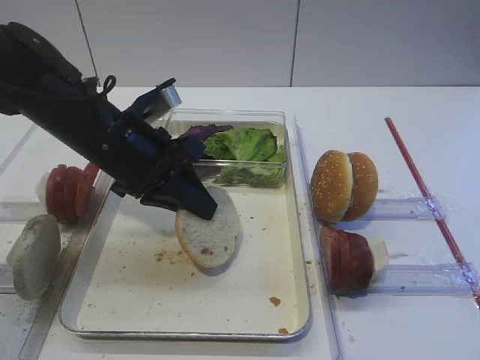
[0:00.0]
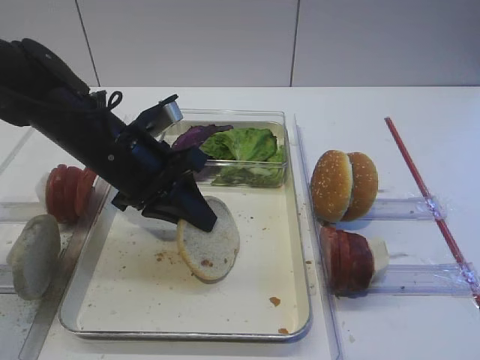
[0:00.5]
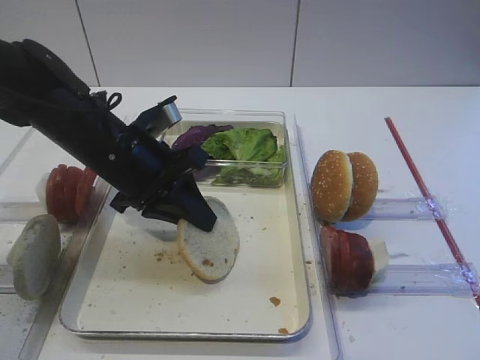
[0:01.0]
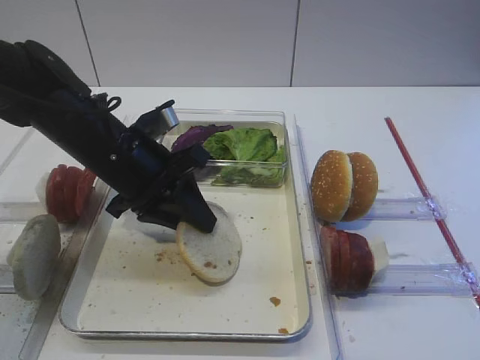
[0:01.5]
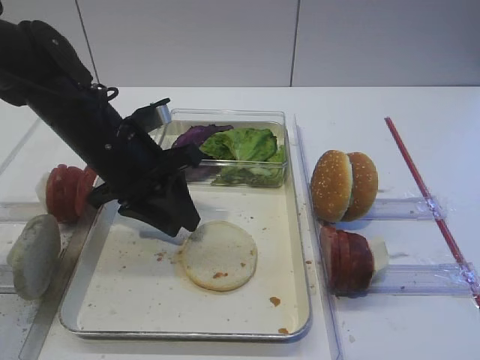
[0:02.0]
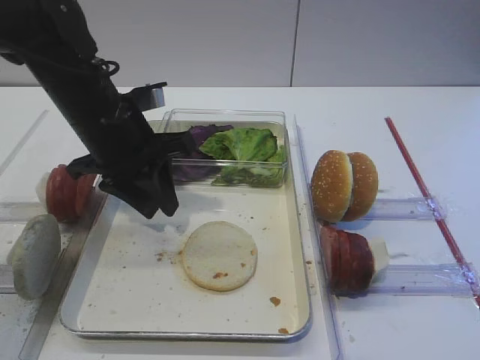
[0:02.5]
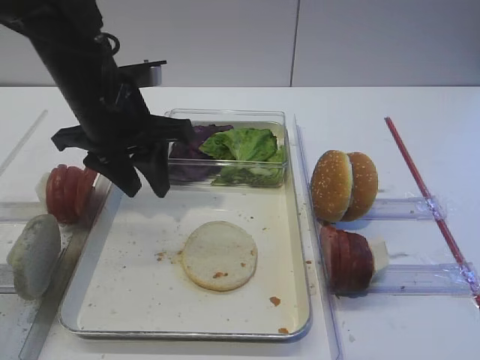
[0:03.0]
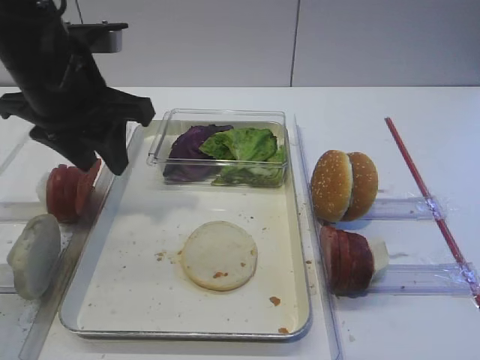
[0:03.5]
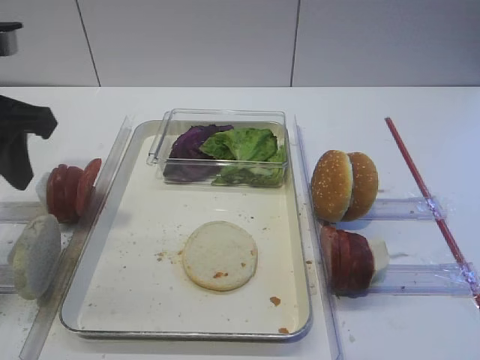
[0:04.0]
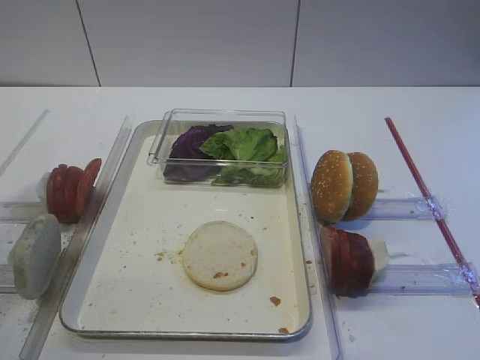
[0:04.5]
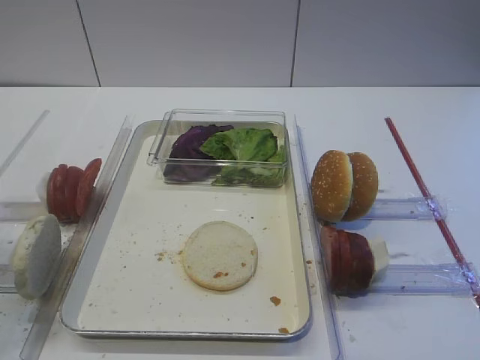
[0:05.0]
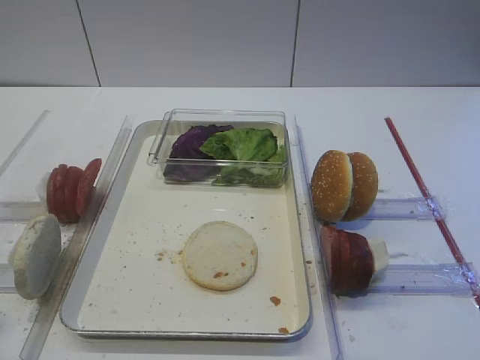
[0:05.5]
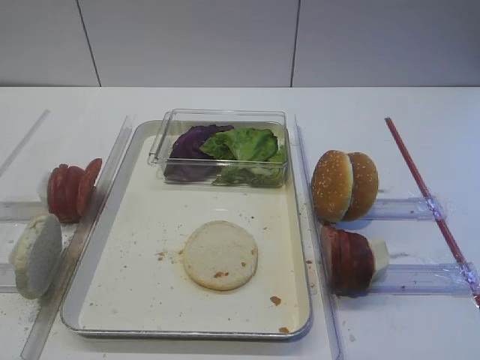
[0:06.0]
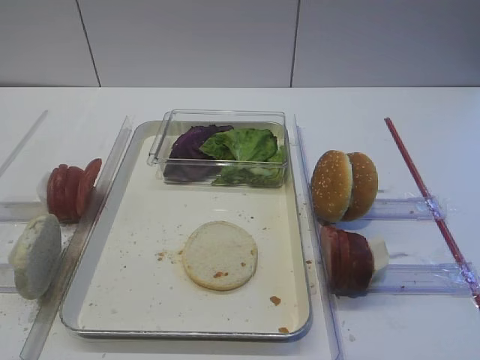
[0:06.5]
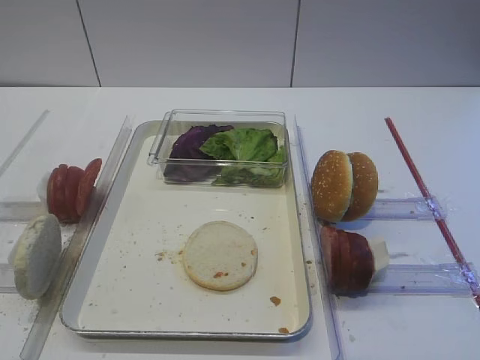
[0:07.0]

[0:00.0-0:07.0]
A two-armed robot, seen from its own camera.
Step, 0:00.0 to 0:02.0: Place the bread slice on the tray with the left gripper.
0:00.0 to 0:02.0: The left gripper opens its fingers.
0:02.0 to 0:03.5: The left gripper is displaced upward by roughly 10 cm.
0:03.5 to 0:05.0: The left gripper shifts roughly 20 cm backward and to the left.
0:05.0 to 0:07.0: The left gripper travels backward and downward by roughly 15 cm.

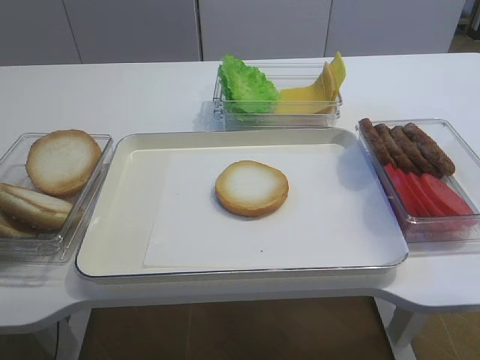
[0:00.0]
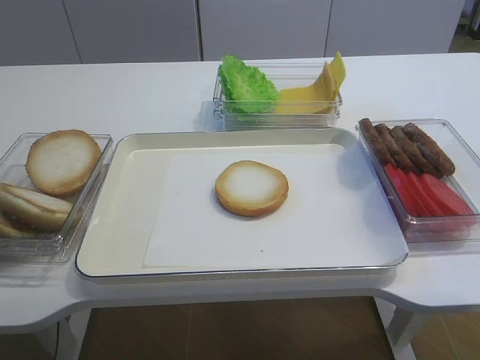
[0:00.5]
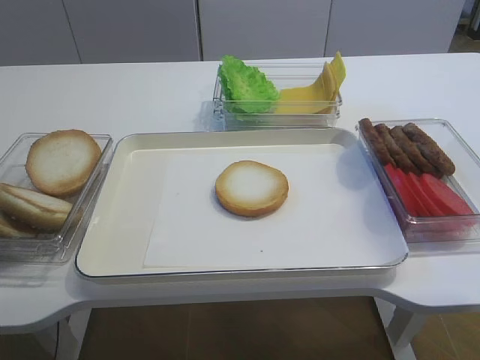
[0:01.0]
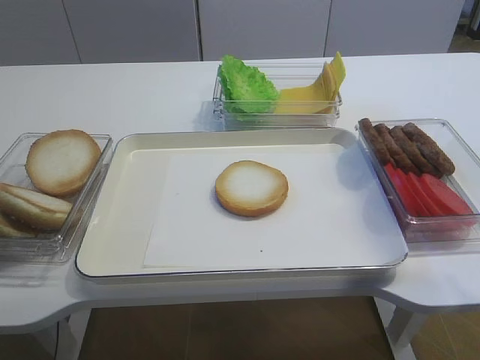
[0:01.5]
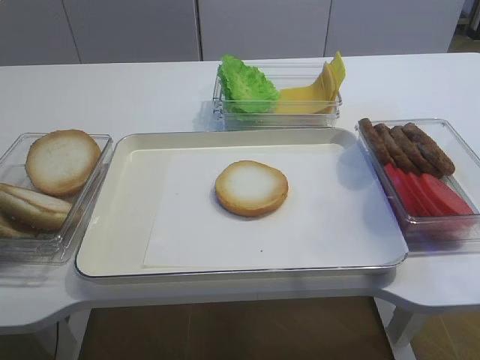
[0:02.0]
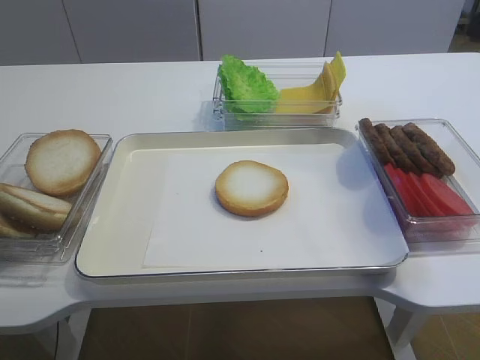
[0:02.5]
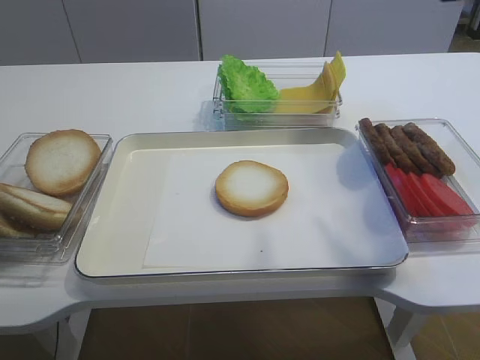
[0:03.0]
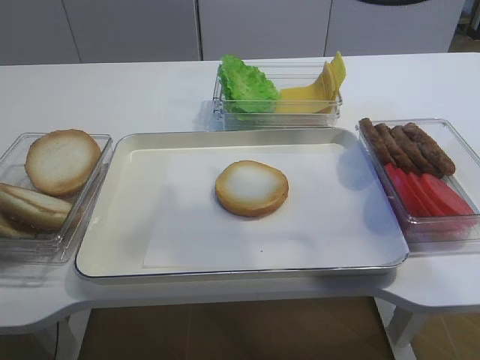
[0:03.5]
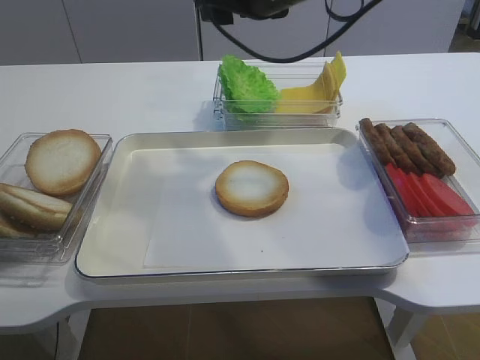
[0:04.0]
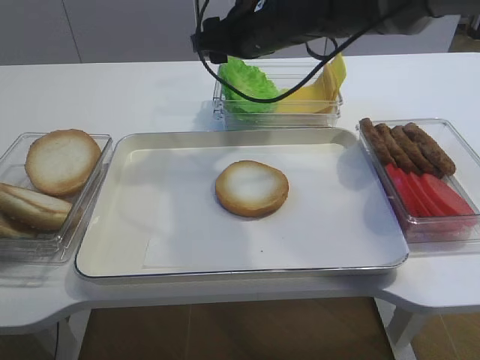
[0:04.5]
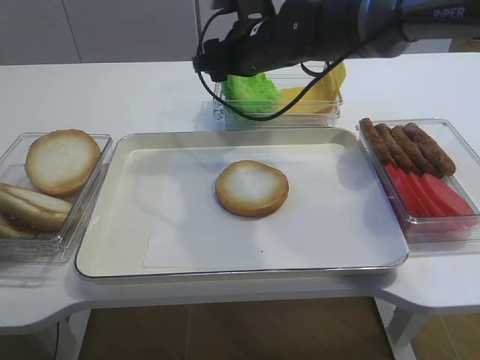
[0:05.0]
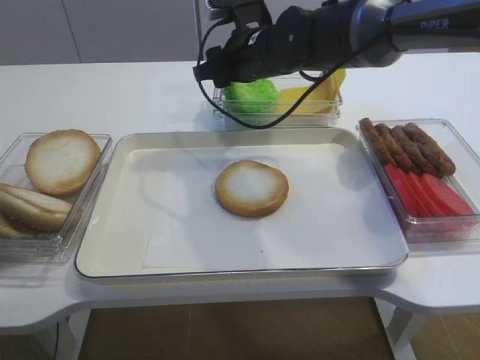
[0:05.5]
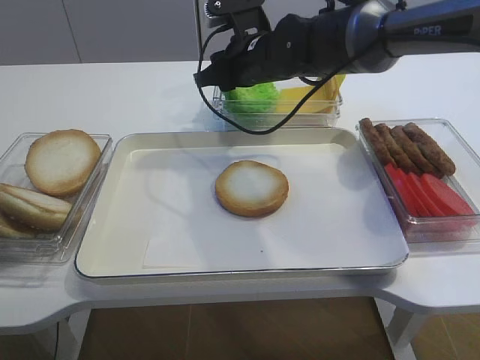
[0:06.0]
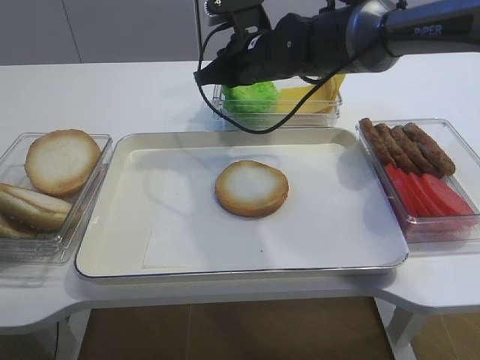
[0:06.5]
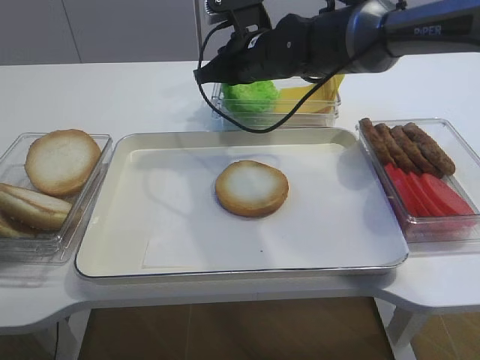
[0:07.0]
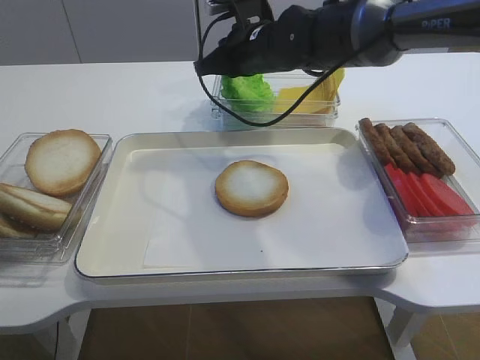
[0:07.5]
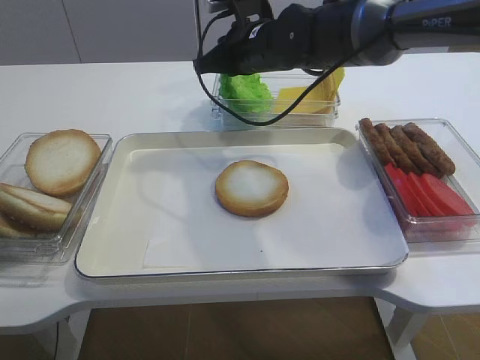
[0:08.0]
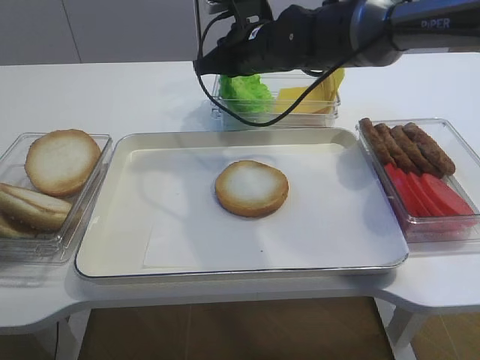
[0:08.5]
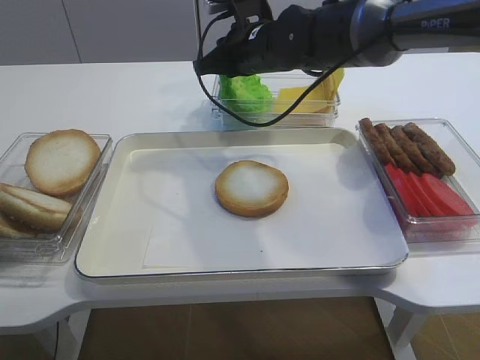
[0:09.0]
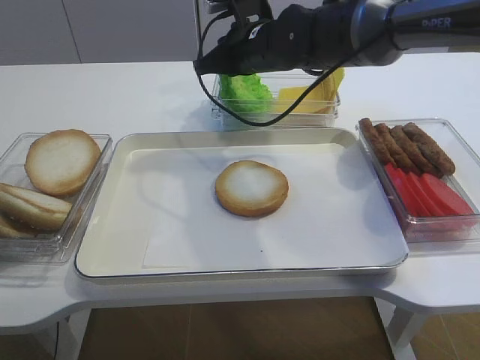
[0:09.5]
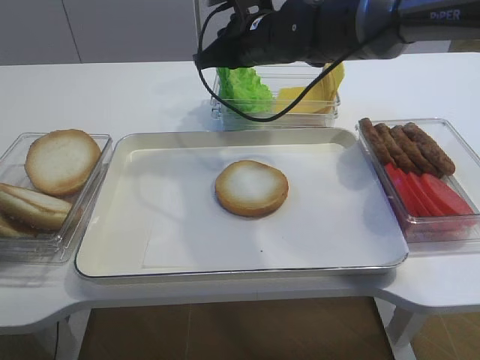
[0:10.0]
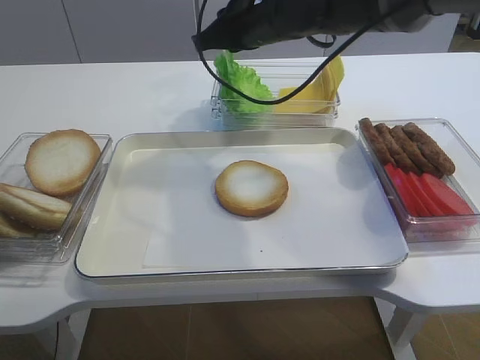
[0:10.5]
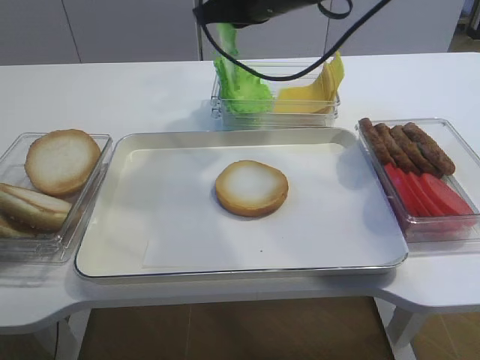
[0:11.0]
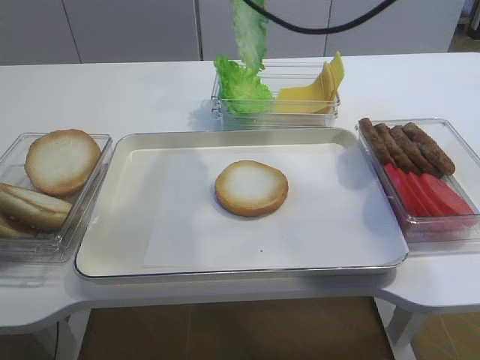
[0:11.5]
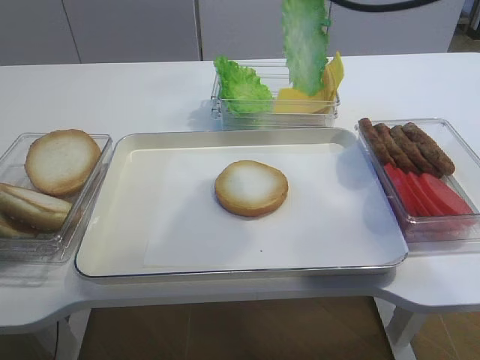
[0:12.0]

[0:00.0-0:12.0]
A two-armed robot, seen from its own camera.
Step, 0:00.0 to 0:11.0: Pick up the lettuce leaf with the right gripper.
0:02.0 to 0:04.0: The right gripper goes some 40 cm forward and to the left.
0:04.0 to 0:06.0: The right gripper goes approximately 10 cm downward.
0:06.0 to 0:08.0: The right gripper closes.
0:08.0 to 0:10.0: The two grippers keep their place.
0:10.0 to 0:12.0: The right gripper travels upward, backward and to the right by approximately 25 cm.

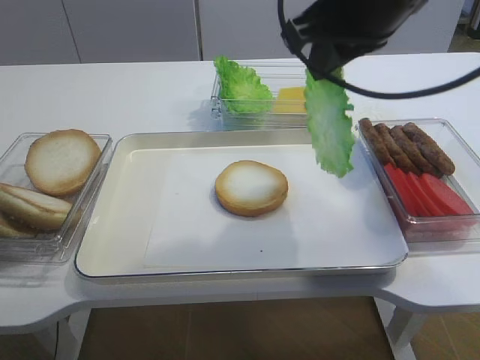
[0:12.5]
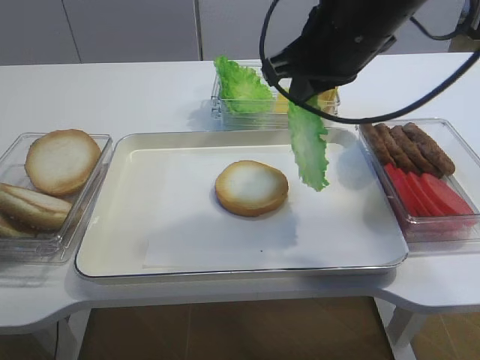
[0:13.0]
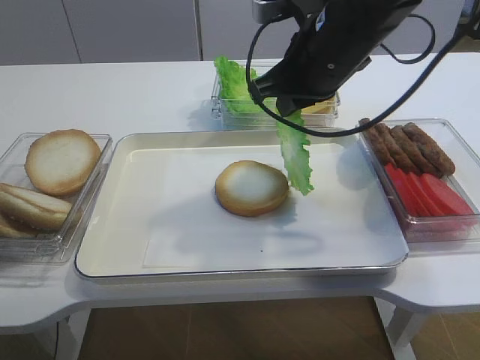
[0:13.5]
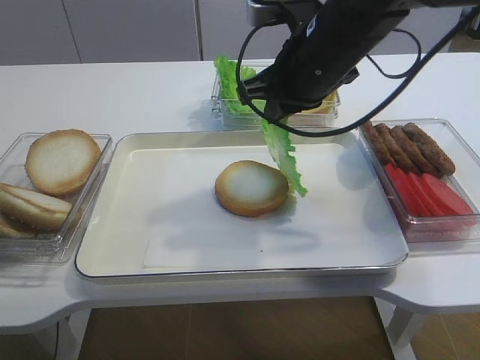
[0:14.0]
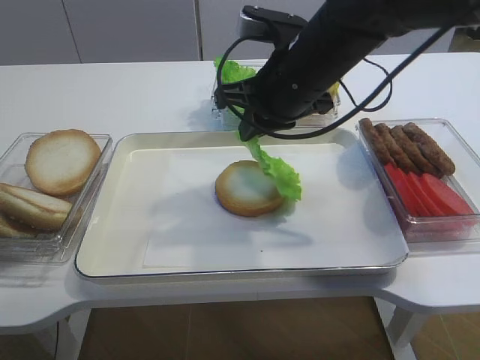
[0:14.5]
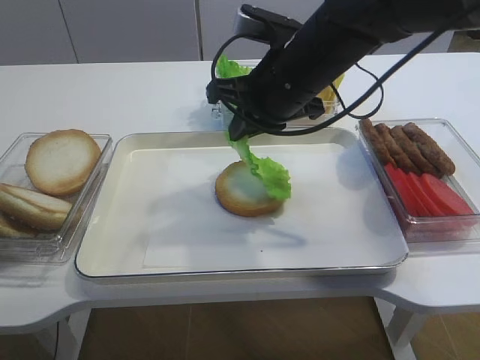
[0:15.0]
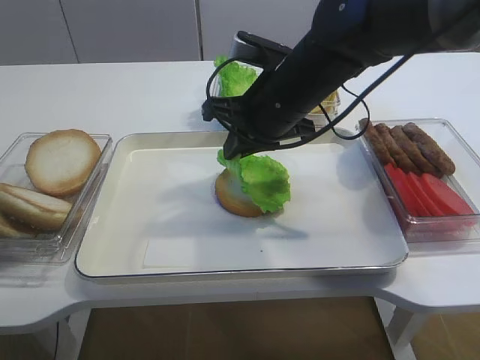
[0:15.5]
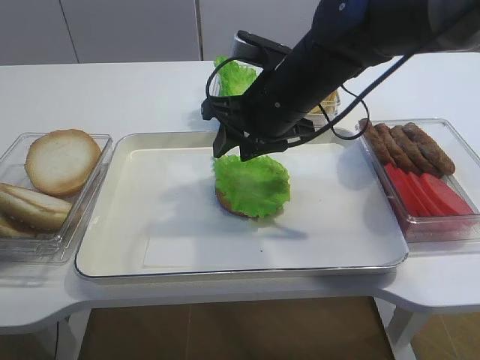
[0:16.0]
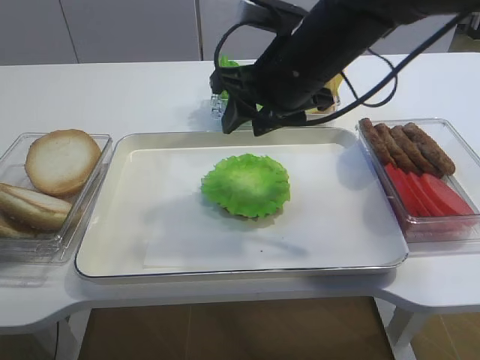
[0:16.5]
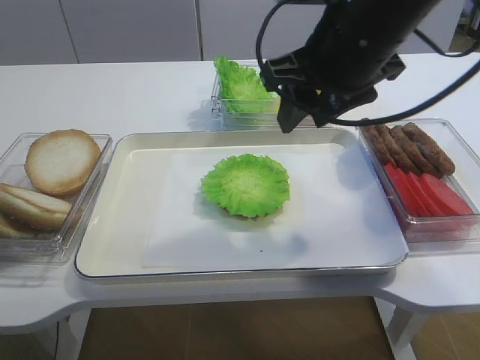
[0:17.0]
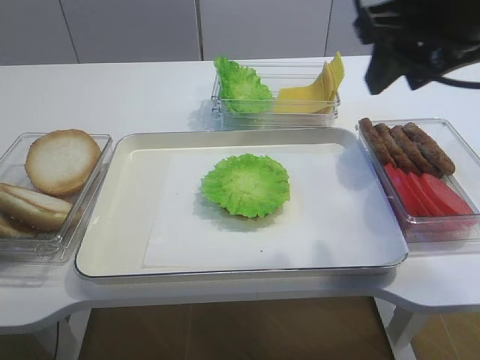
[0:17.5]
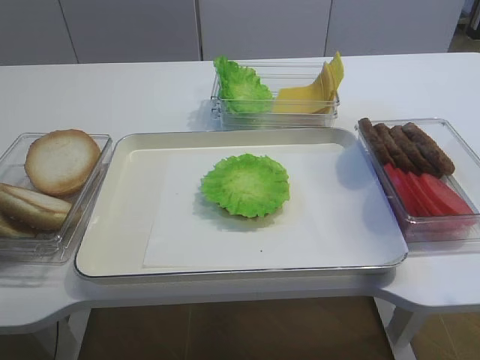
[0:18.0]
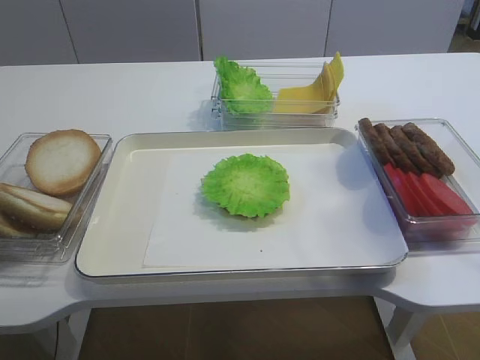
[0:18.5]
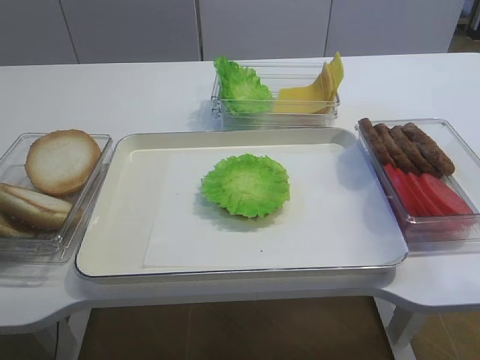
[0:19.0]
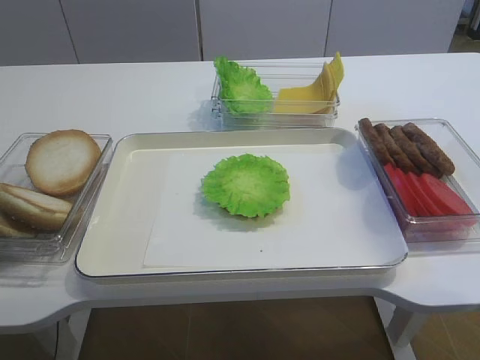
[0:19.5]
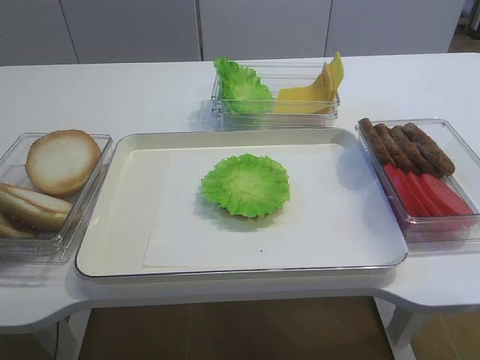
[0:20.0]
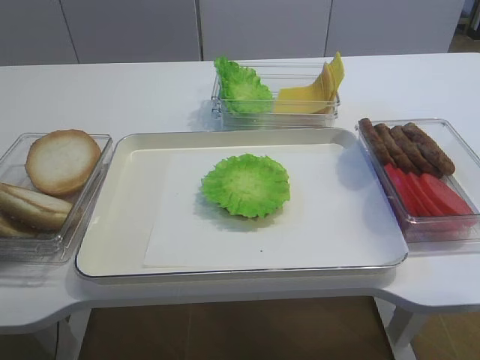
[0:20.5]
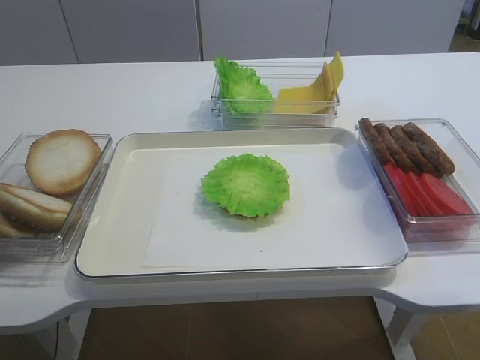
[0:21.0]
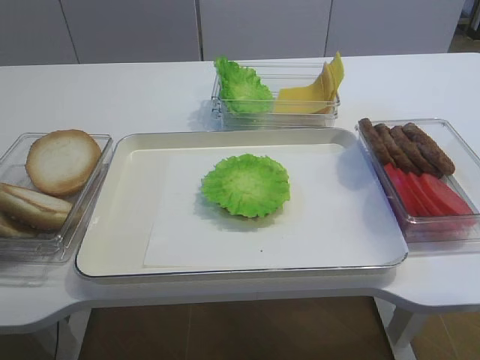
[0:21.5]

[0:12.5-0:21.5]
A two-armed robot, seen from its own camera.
Step, 0:12.5 to 0:16.0: Place the lettuce leaf on the bread slice with the right gripper.
0:12.5 to 0:14.5: The right gripper travels downward by roughly 10 cm.
0:14.5 to 0:17.0: The right gripper goes approximately 5 cm upward, and opens its fingers.
0:17.0 to 0:19.5: The right gripper heads backward and to the right, covering about 35 cm.
